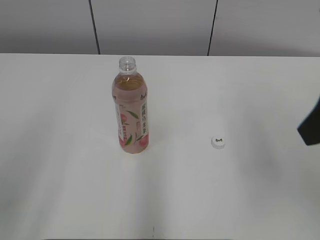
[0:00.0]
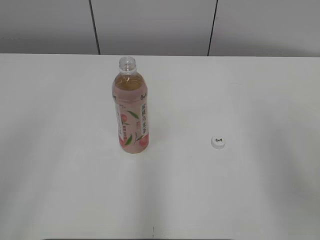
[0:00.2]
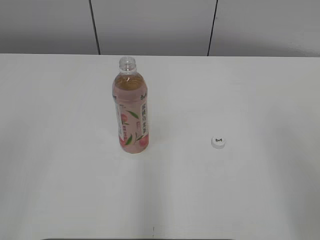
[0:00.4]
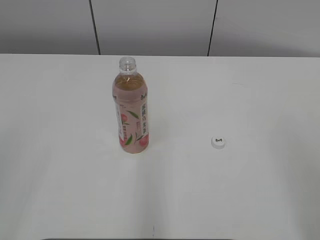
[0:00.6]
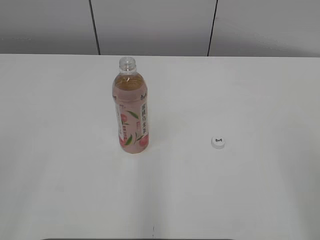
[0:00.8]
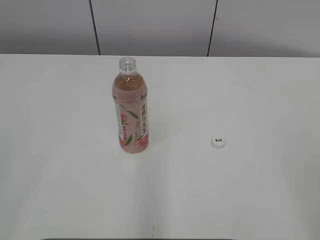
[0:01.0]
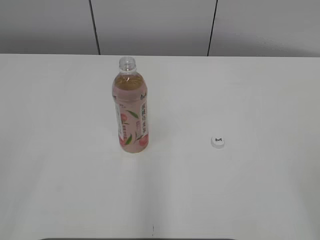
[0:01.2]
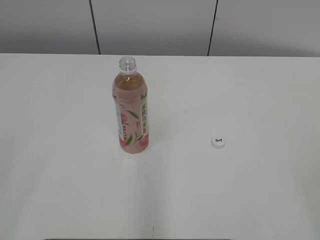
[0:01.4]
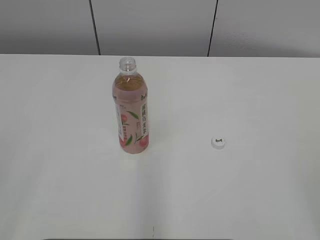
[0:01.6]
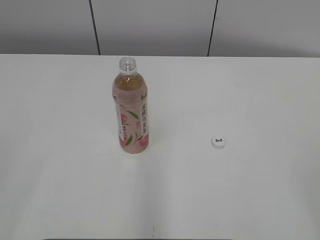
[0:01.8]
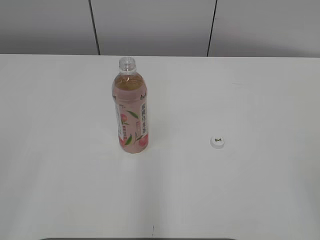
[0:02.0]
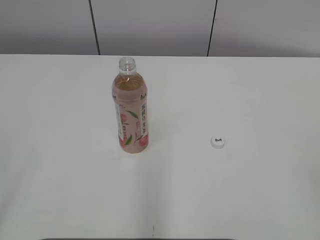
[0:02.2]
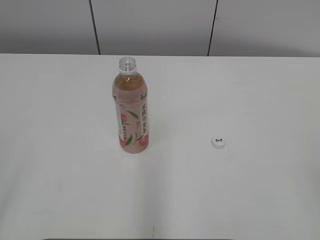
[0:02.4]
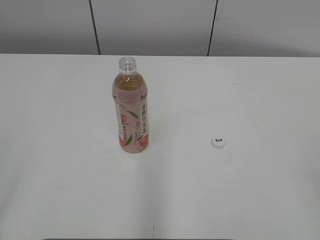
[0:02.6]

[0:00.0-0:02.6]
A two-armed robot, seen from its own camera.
0:00.0 to 0:01.2: The right gripper moves backward and to the right, some 20 cm. Meanwhile the left gripper travels backward and to the left by some 10 cm.

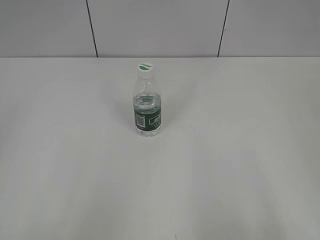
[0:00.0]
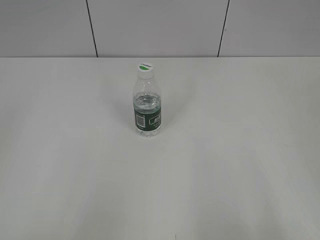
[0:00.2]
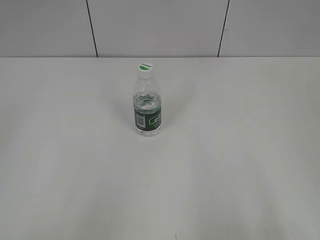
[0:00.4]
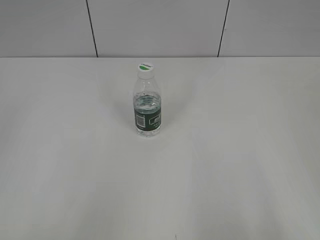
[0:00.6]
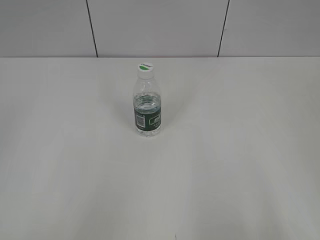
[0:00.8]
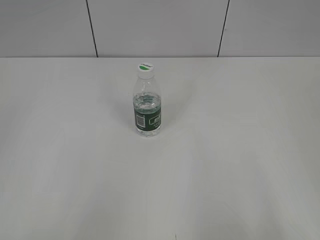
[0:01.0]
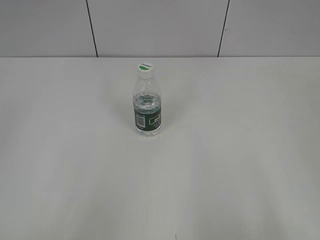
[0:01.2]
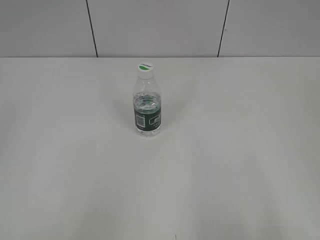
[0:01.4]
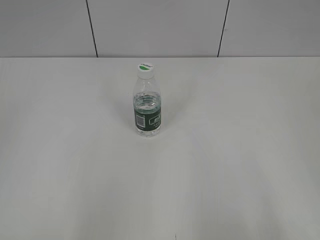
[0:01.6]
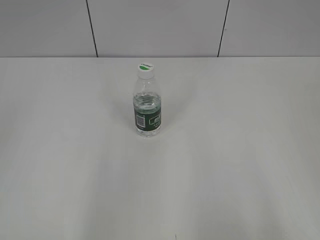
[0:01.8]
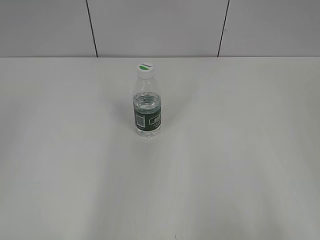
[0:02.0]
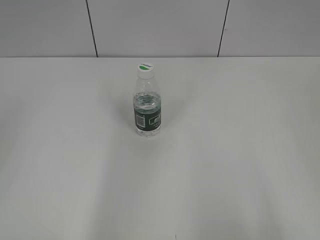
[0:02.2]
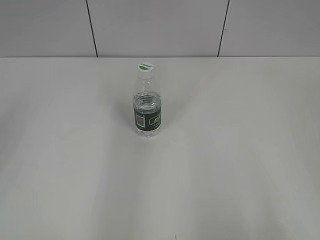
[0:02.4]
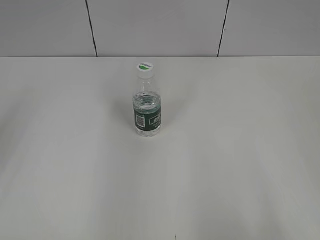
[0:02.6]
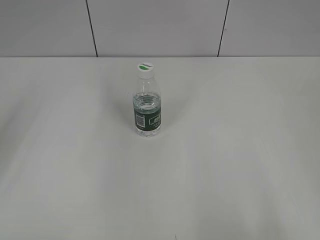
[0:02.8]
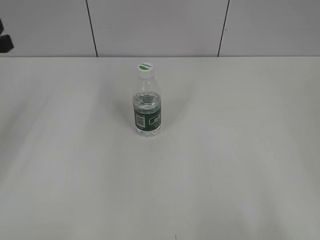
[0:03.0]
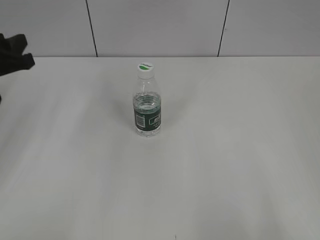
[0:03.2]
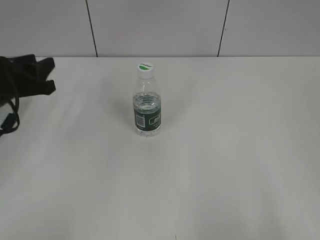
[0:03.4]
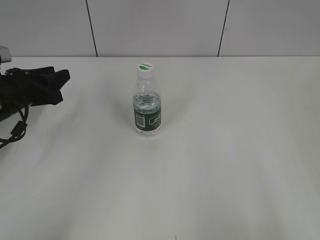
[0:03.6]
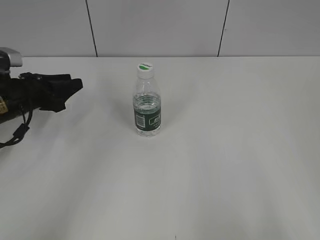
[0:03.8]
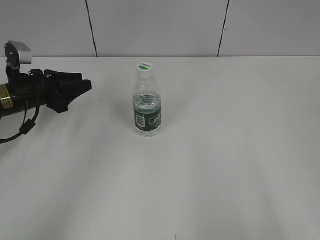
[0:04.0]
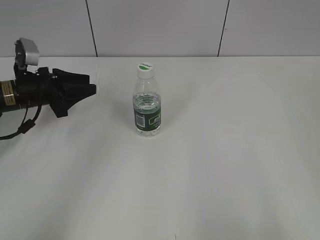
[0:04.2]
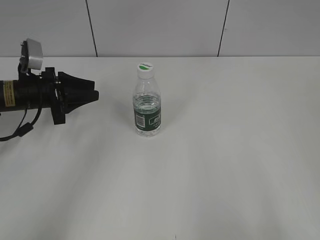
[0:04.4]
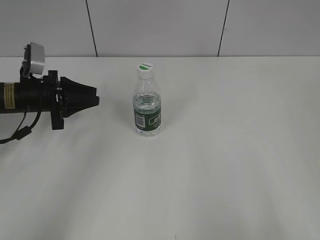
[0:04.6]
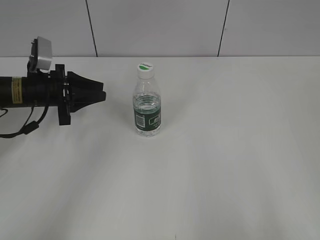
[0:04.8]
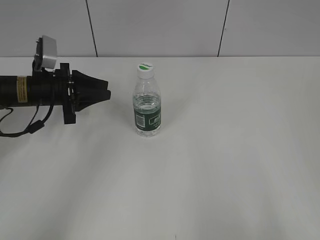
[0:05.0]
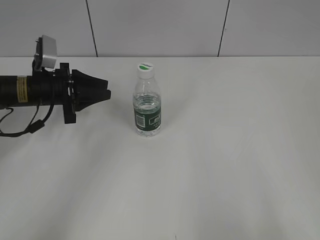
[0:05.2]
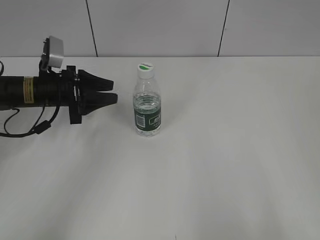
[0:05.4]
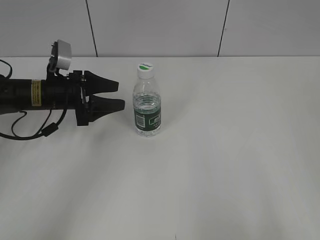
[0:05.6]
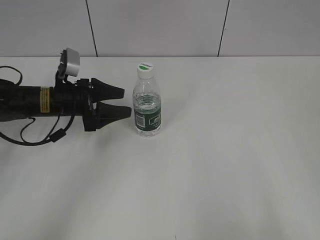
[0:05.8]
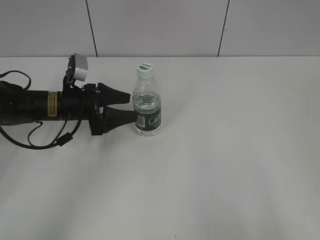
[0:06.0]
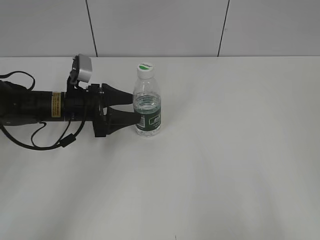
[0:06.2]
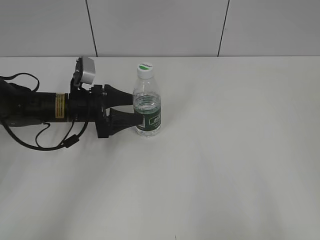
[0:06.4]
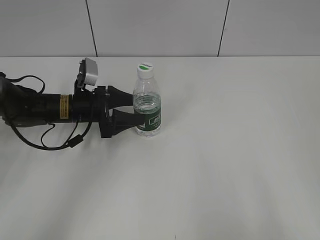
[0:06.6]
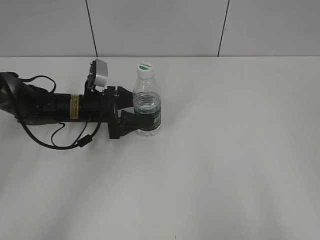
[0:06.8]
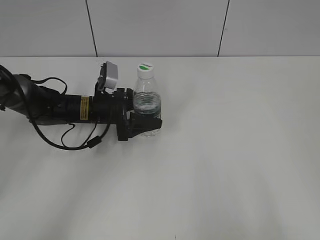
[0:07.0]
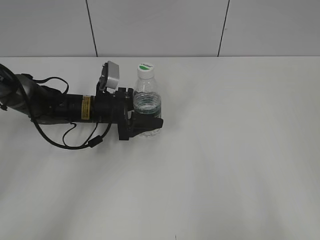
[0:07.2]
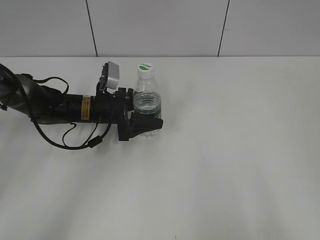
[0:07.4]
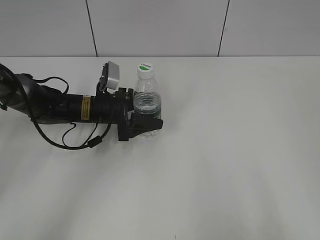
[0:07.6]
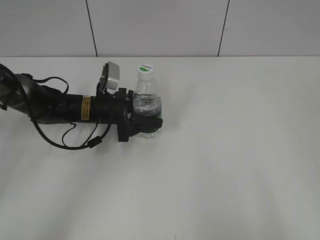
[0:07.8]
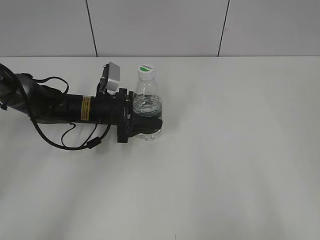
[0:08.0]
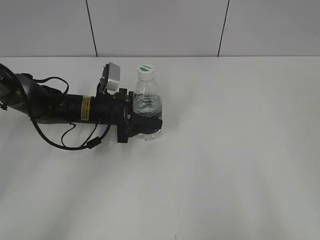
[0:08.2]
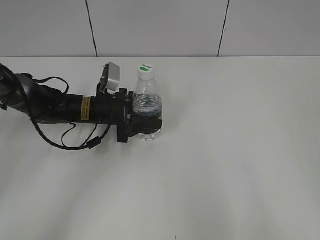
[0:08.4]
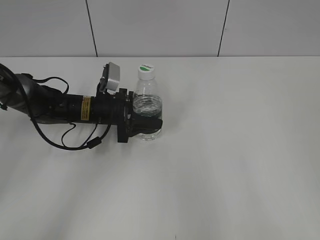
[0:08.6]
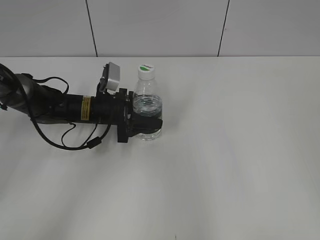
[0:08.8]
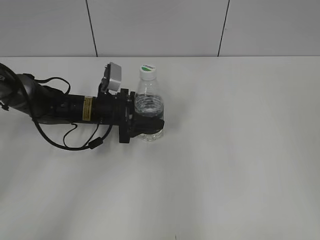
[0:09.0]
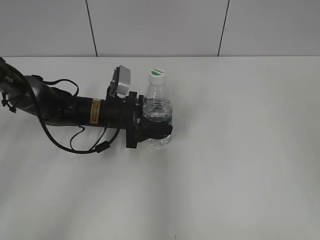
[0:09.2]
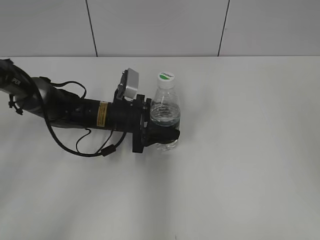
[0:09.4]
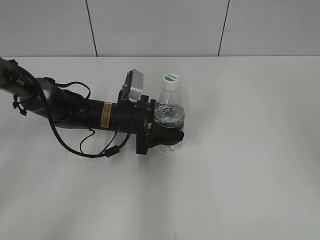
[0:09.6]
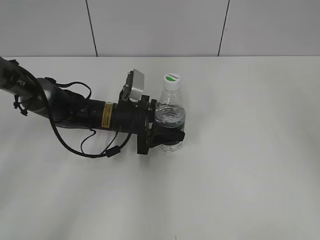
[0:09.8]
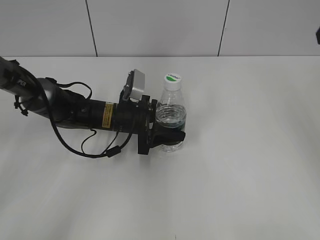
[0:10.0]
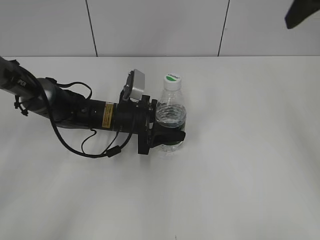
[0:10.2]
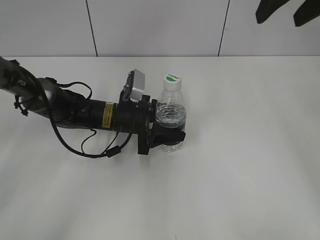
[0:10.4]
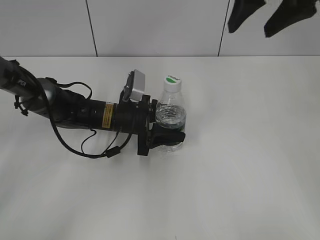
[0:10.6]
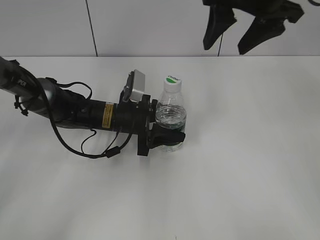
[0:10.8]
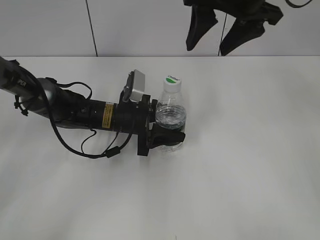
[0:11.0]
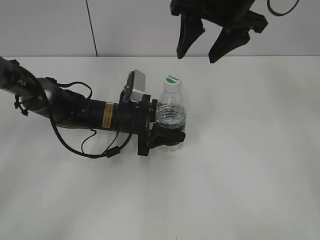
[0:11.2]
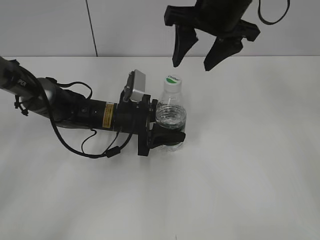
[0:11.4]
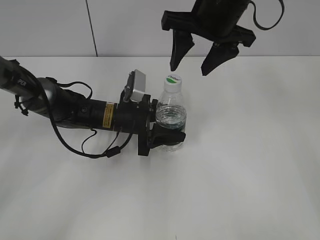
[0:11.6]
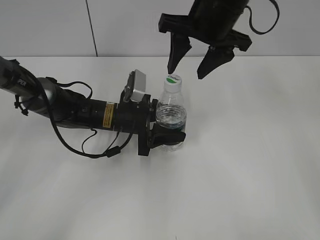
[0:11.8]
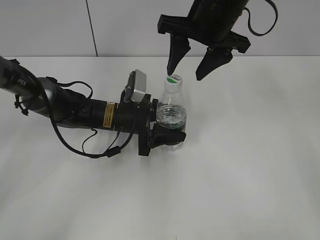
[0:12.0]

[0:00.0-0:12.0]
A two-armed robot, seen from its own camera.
Step, 0:00.0 to 0:09.8: Grasp the bottle and move it to the center of the table with the left gripper.
0:03.0 to 0:04.4: The left gripper is displaced downward and forward by some 15 cm.
0:04.4 to 0:06.0: The left gripper moves to the right, some 5 cm, and opens.
0:06.0 to 0:07.6: The left gripper travels to the right by about 5 cm.
0:07.6 to 0:09.0: The left gripper closes its fingers. The right gripper is displaced forward by some 10 cm.
0:09.0 to 0:10.4: The right gripper goes about 25 cm forward and to the left.
0:10.4 to 0:12.0: The right gripper travels to the left and downward by some 15 cm.

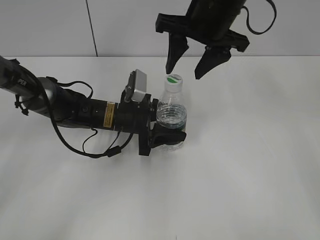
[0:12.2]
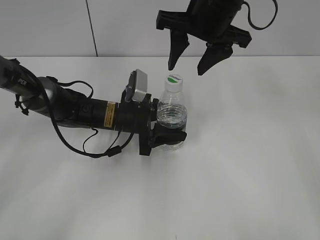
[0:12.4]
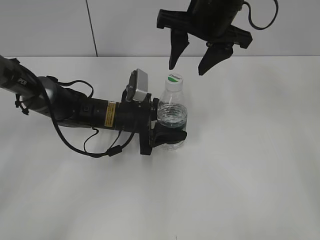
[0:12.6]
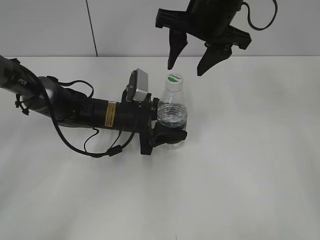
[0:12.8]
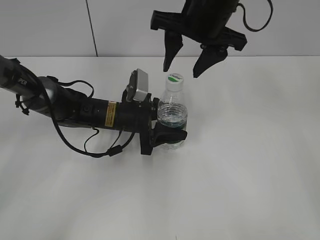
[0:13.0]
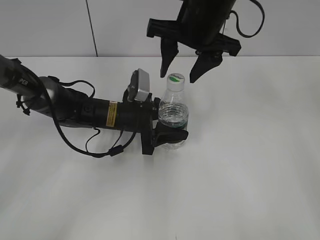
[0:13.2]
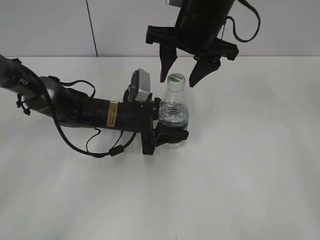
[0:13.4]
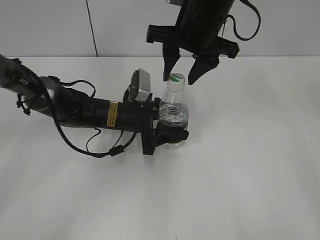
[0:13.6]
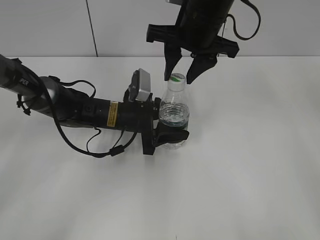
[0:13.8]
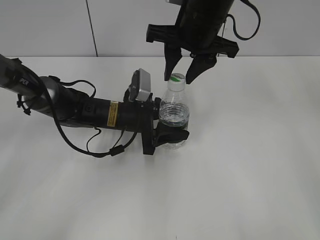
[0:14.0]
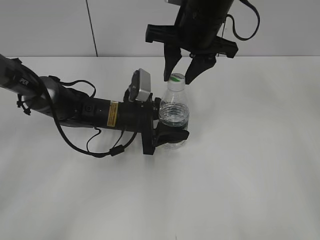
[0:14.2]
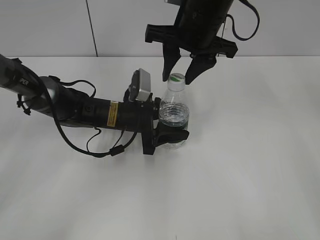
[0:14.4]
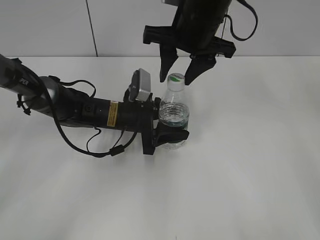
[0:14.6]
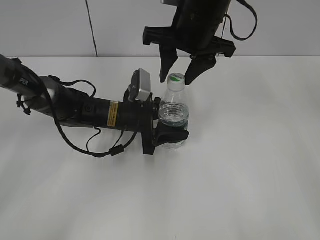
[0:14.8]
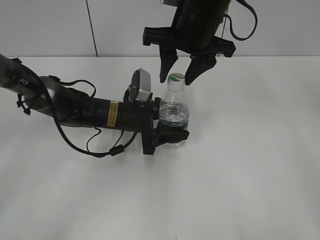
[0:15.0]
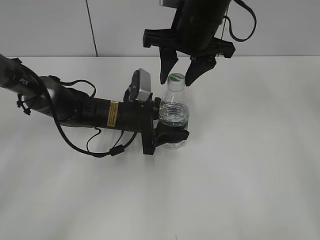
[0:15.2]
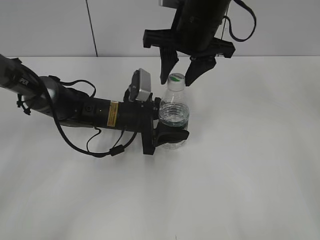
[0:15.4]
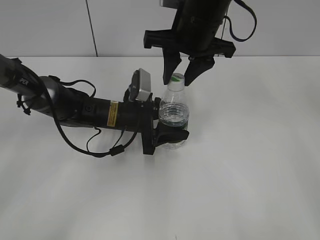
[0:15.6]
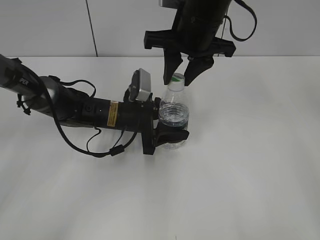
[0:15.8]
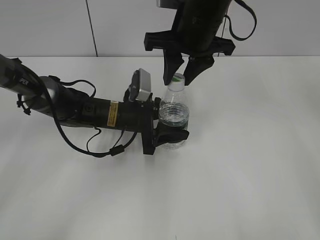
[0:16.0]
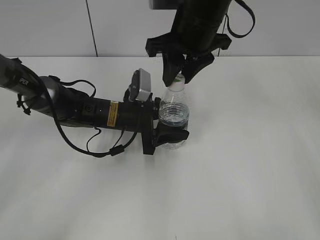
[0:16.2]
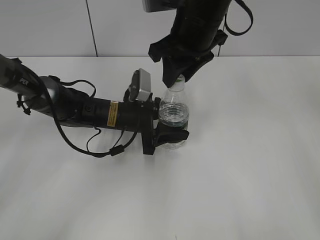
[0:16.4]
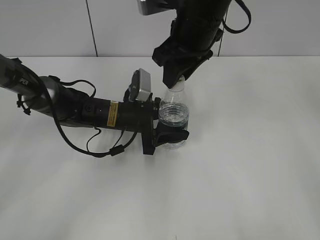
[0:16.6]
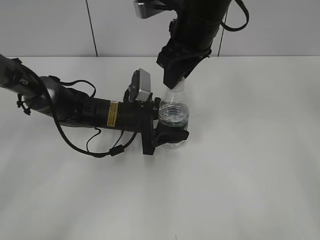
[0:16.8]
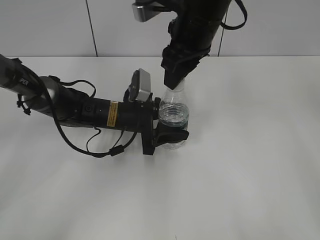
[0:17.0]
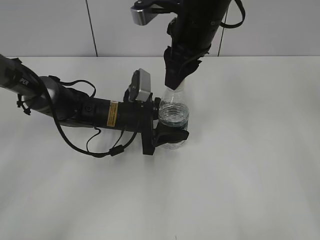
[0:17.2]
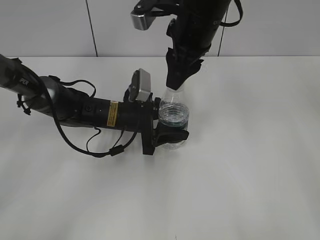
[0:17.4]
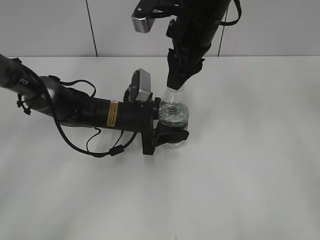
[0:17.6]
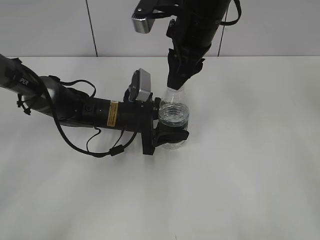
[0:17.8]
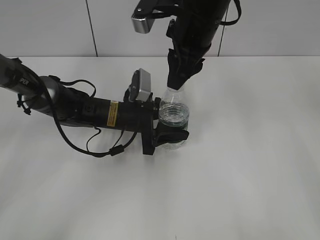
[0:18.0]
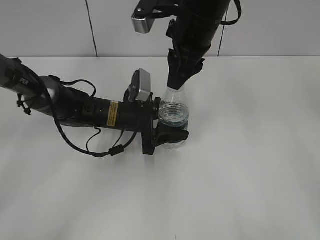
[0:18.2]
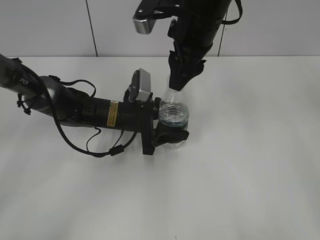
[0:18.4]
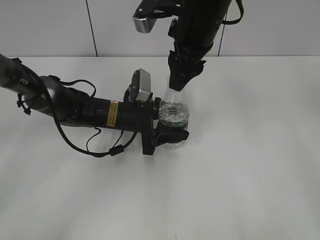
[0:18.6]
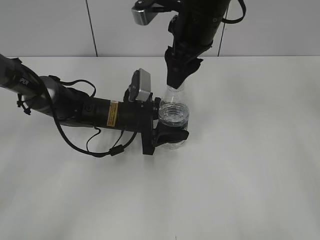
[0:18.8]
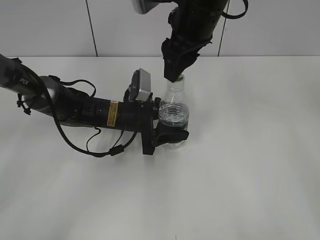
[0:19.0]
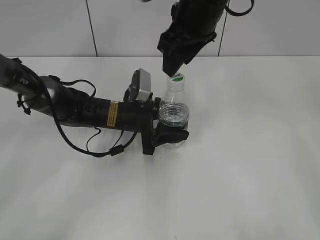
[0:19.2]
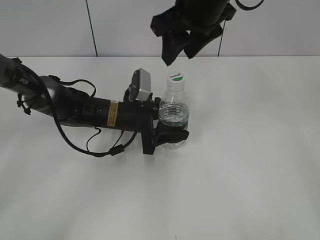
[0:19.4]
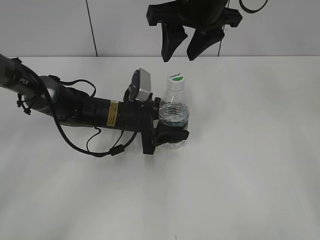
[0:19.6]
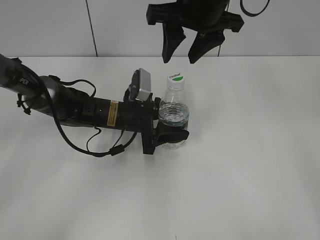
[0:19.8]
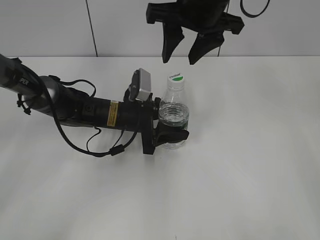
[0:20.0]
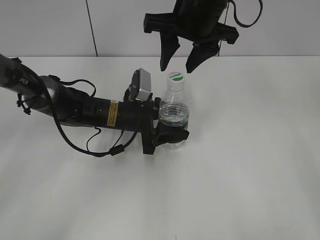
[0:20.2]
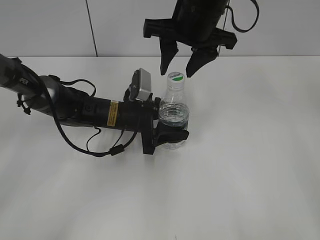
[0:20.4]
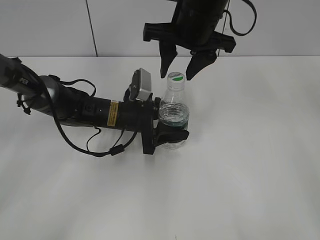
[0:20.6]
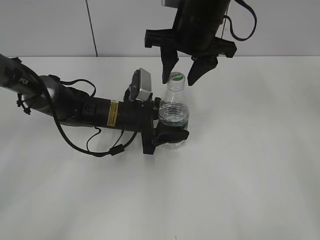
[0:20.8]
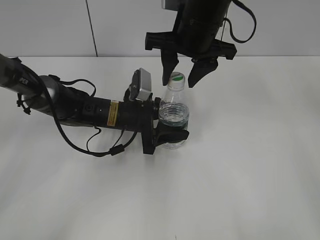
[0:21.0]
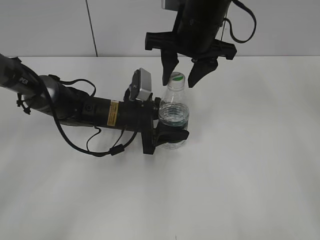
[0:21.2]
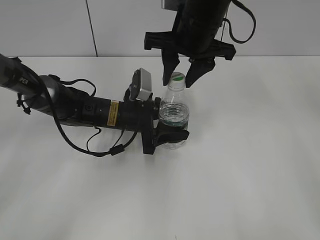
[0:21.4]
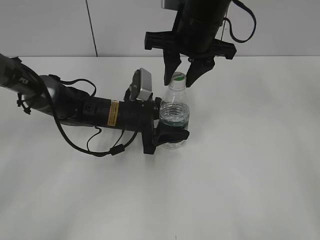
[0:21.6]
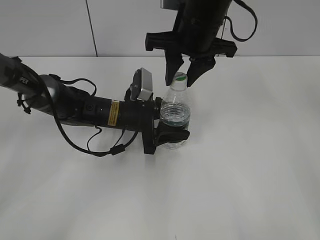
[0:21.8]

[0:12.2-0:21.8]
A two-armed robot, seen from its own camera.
0:12.2 to 0:13.8: The right gripper closes up.
0:13.8 to 0:15.4: Both grippers stay about where they are.
0:15.4 to 0:17.0: The right gripper closes its fingers.
0:17.0 to 0:18.6: The right gripper opens.
0:20.2 to 0:21.8: The right gripper closes its fingers.
